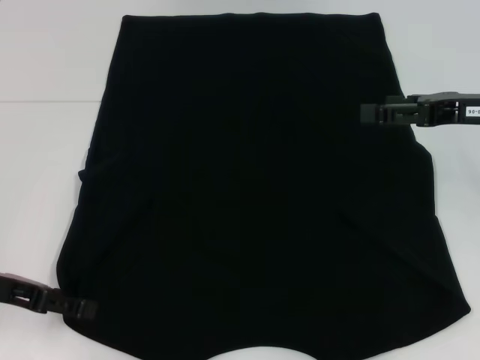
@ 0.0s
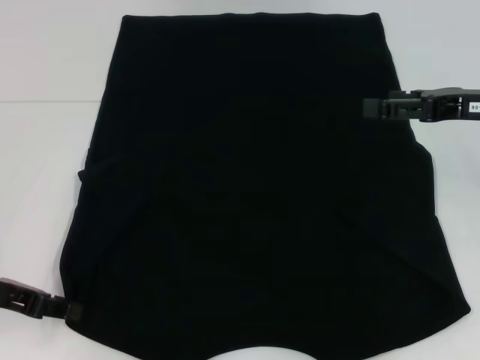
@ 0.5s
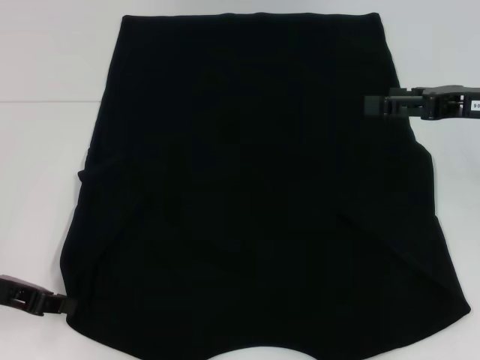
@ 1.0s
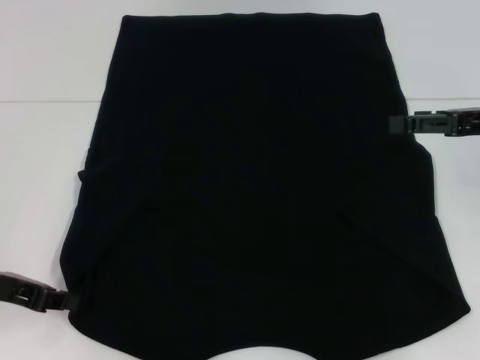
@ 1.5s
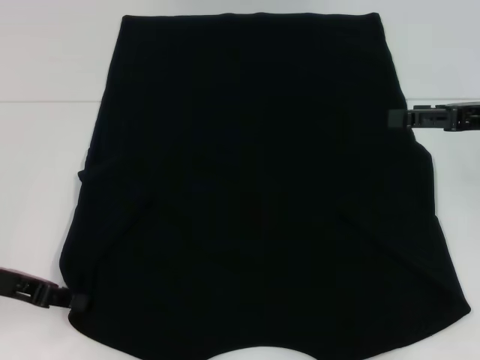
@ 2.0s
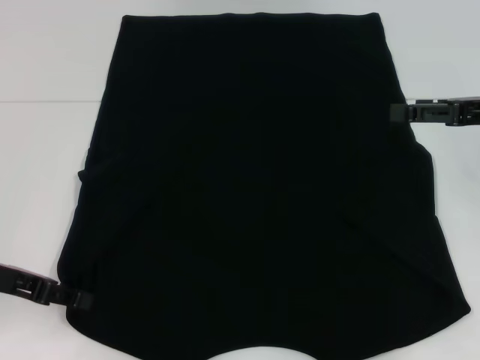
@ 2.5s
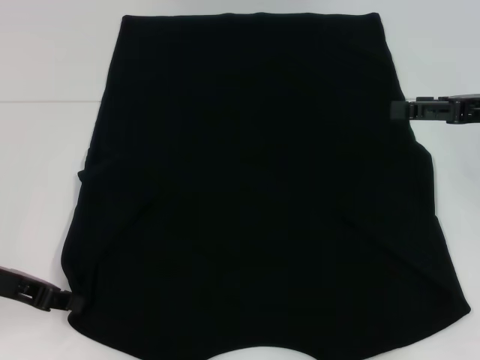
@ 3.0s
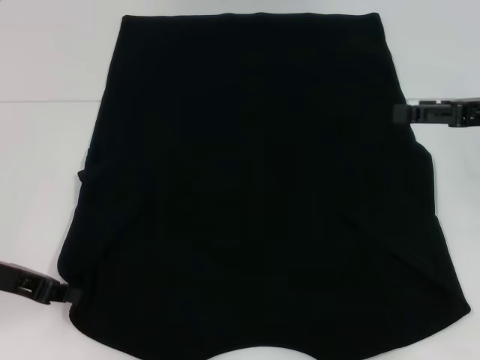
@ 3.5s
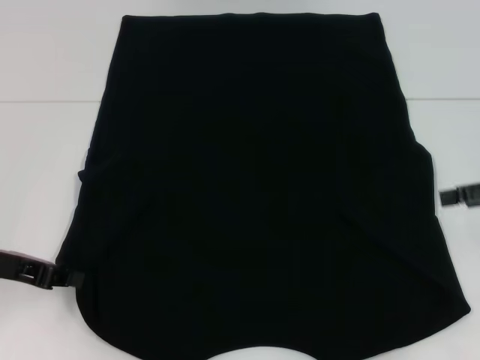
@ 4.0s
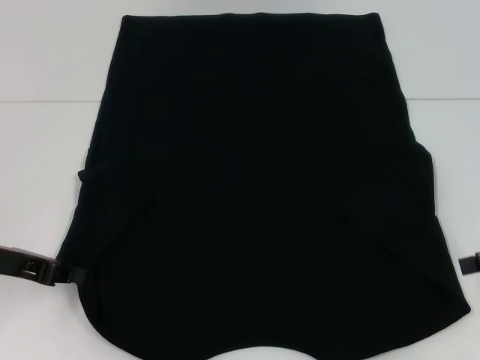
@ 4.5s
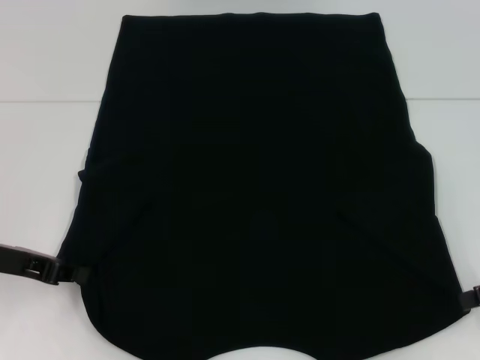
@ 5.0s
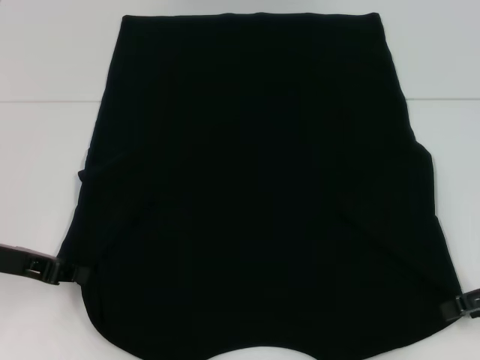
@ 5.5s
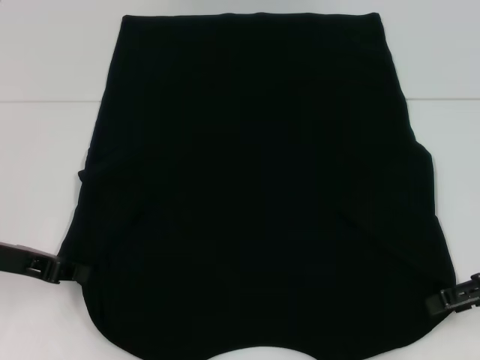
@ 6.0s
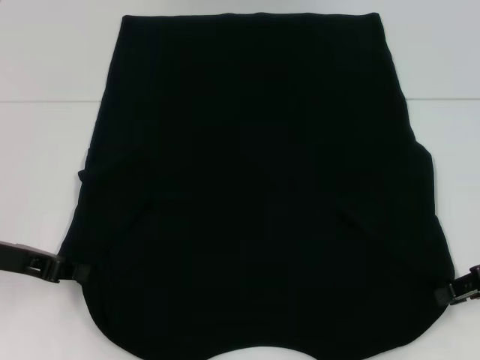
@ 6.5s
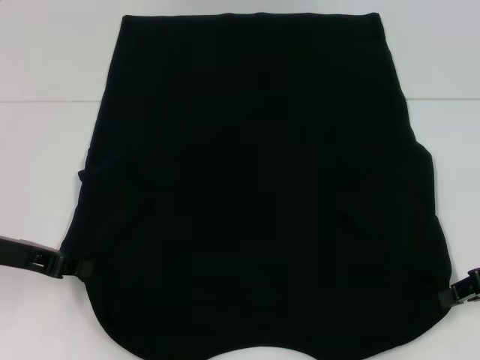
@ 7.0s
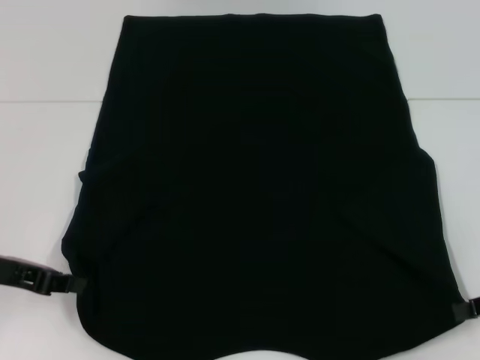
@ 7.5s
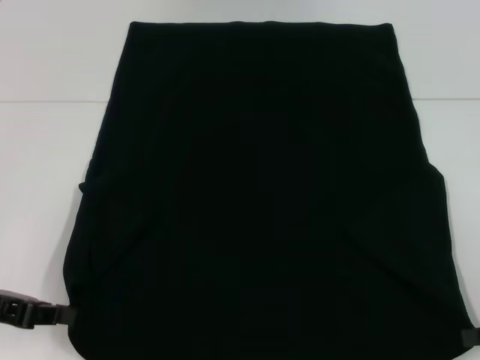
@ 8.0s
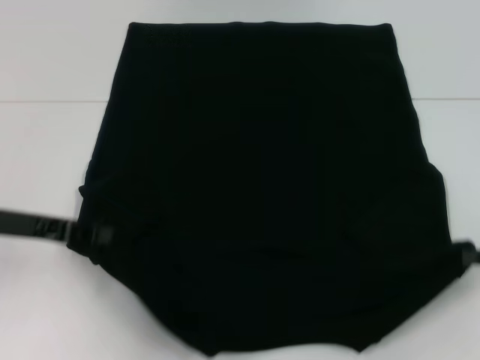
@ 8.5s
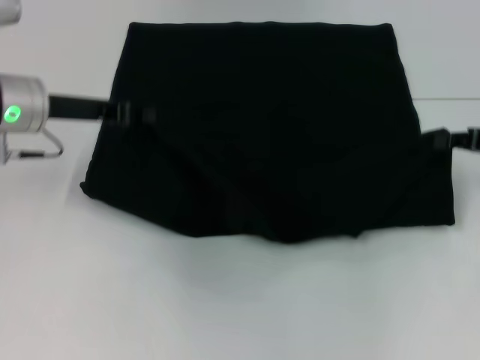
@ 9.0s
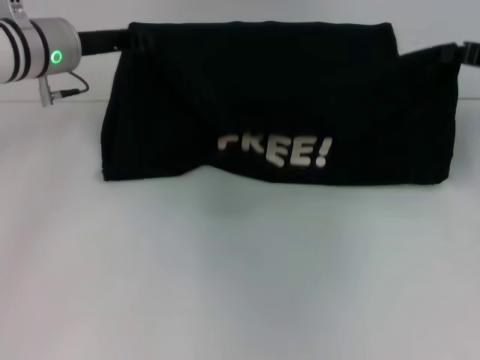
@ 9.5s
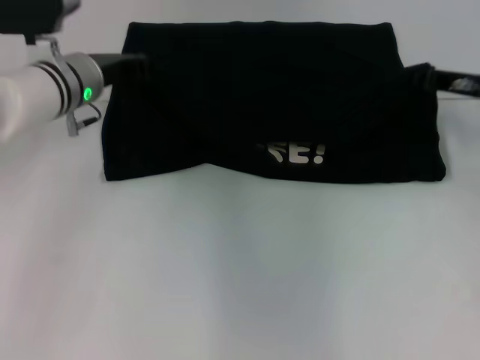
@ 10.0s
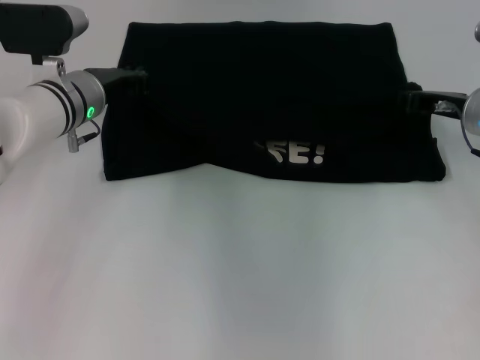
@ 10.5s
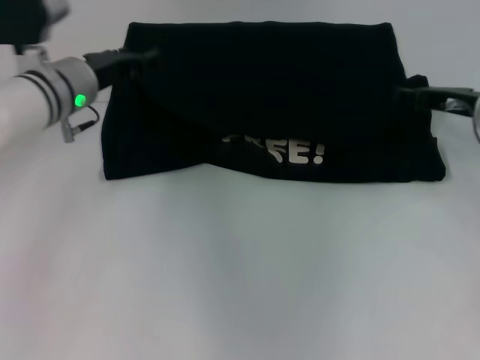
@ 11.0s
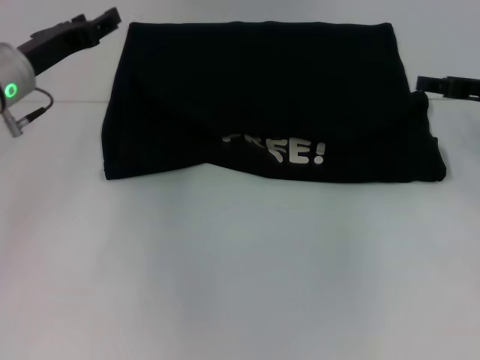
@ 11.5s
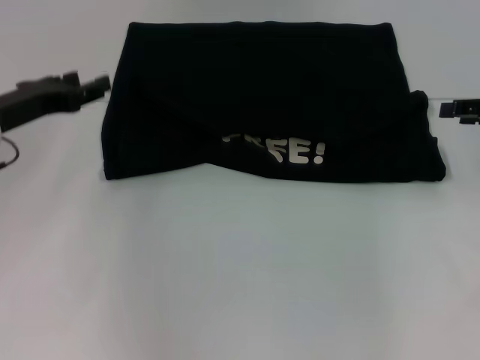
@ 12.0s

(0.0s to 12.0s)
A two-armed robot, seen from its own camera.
Step, 1.5s - 7.0s: Grab the bottom right corner with your right hand.
Step, 7.5s - 11.0s: Fold the clothes with your left hand.
Step, 7.5s - 11.0s: Fold the clothes with your right hand.
0.0s - 2.0s: The left gripper closes its fingers.
2.0s - 4.0s: The right gripper ends up roughly 5 cm from where it was.
4.0s - 6.0s: The right gripper travels downward by roughly 5 cm.
6.0s - 8.0s: Both grippers move backward, about 5 cm. The right gripper closes.
8.0s - 10.0s: The left gripper travels forward and to the right by roughly 25 cm. The right gripper heads forward and to the left, covering some 20 cm.
10.0s - 12.0s: The right gripper shifts some 10 cm to the right and backward, and opens its fingers. The left gripper moves to the left and backward, roughly 15 cm, and opens.

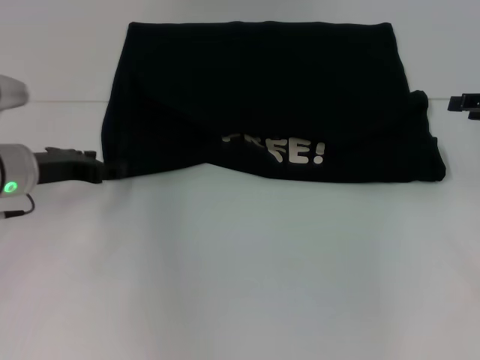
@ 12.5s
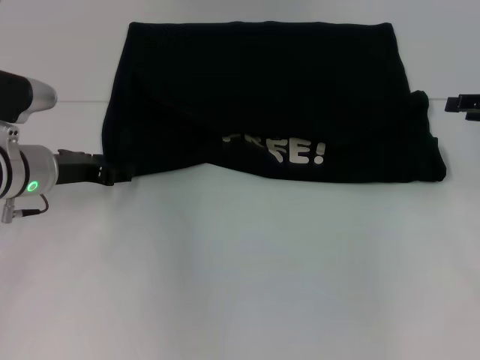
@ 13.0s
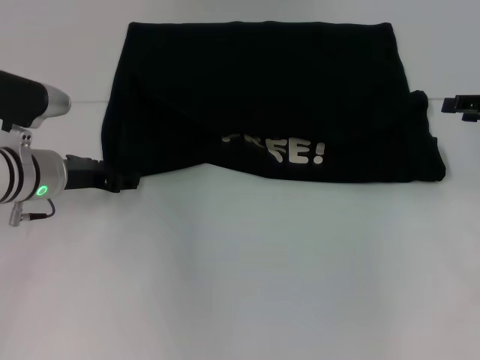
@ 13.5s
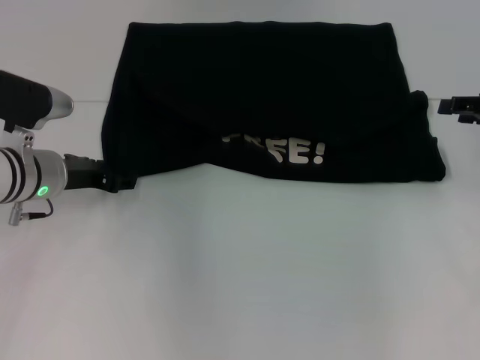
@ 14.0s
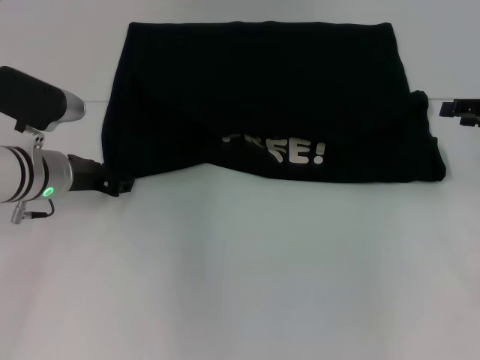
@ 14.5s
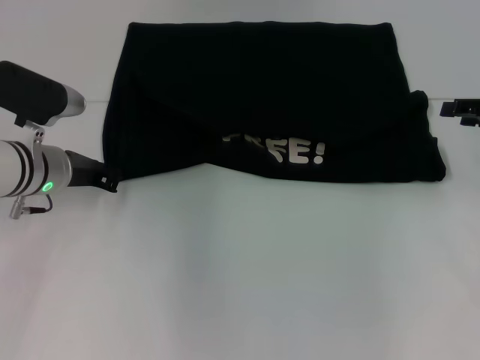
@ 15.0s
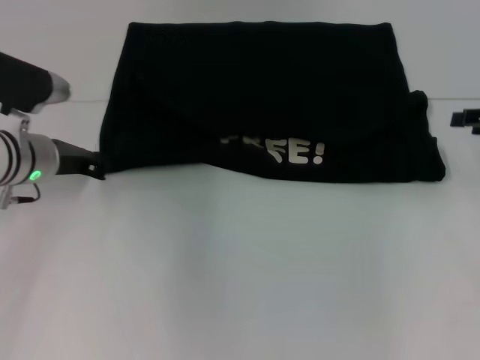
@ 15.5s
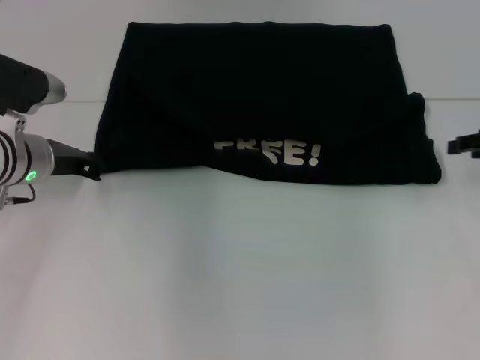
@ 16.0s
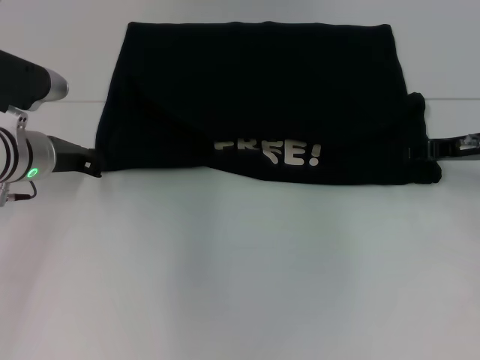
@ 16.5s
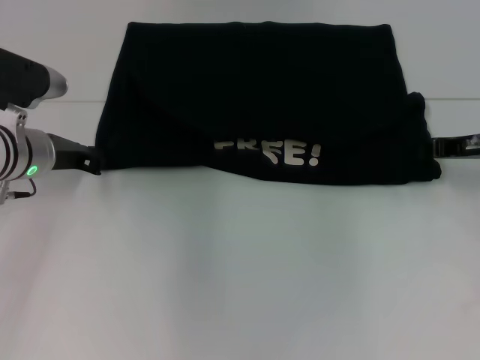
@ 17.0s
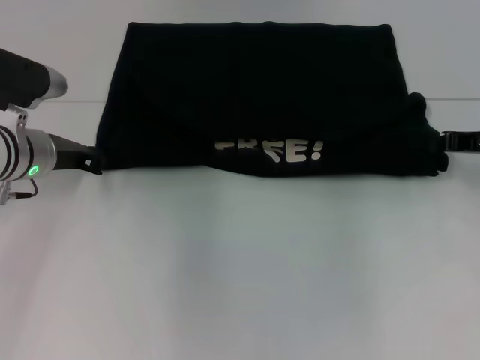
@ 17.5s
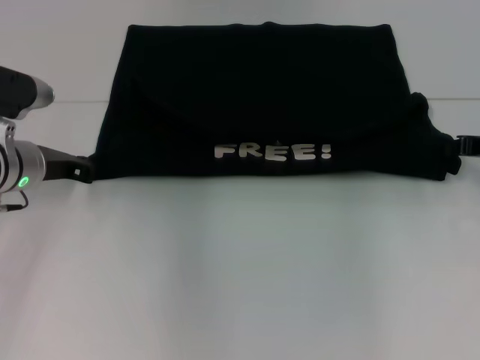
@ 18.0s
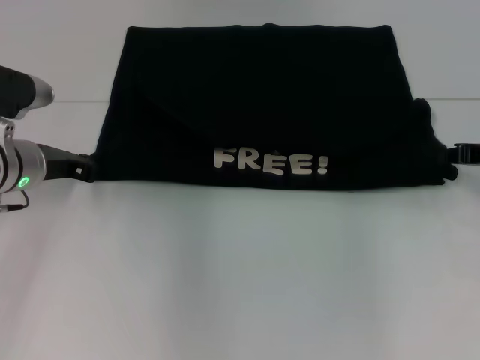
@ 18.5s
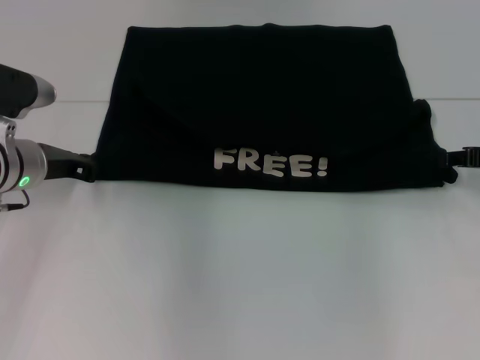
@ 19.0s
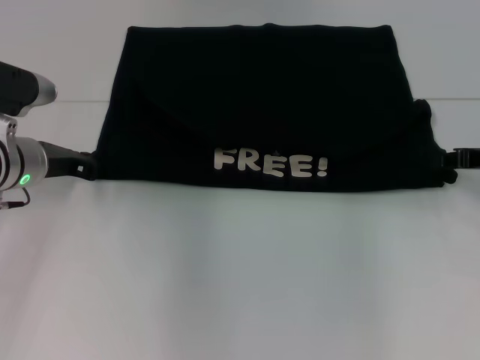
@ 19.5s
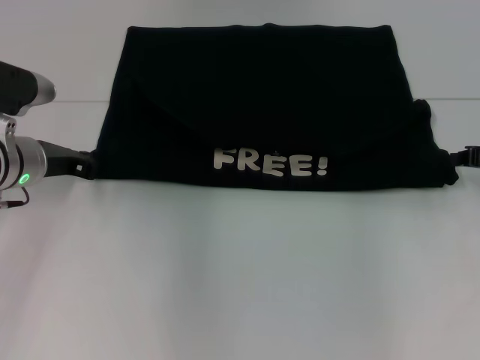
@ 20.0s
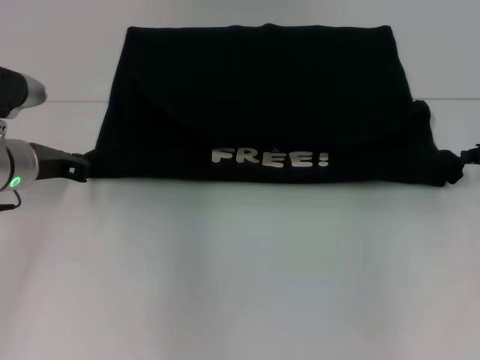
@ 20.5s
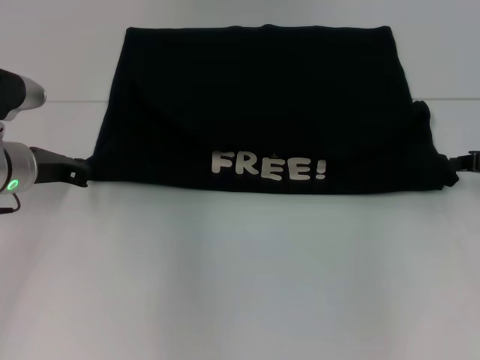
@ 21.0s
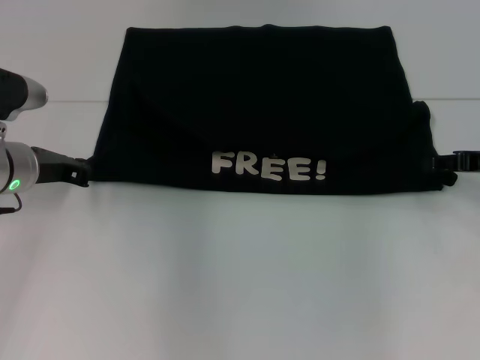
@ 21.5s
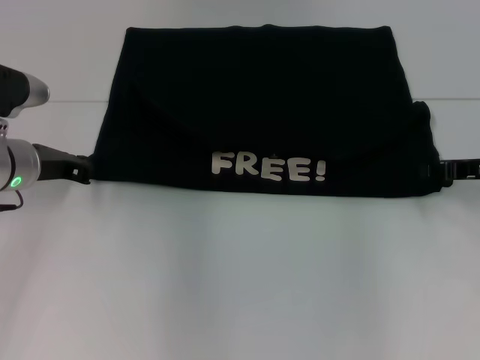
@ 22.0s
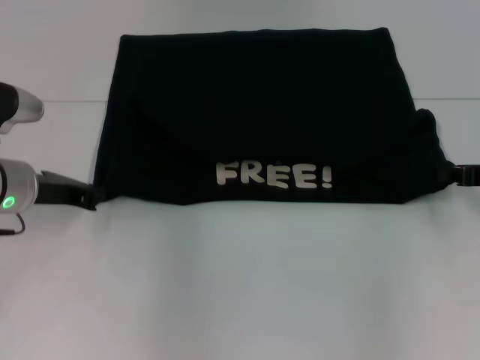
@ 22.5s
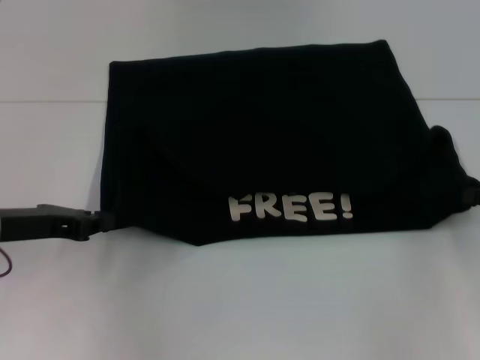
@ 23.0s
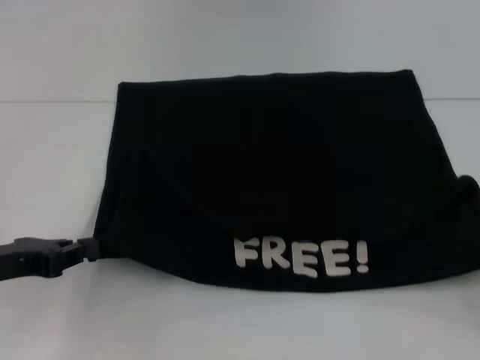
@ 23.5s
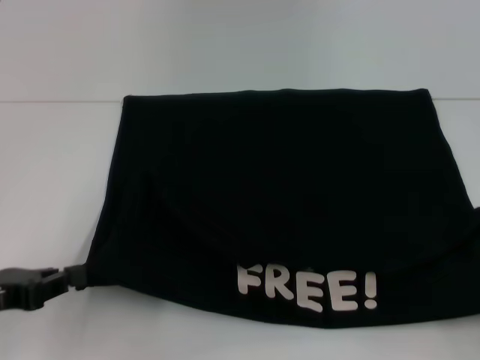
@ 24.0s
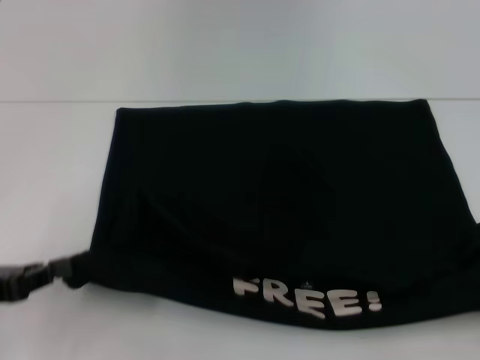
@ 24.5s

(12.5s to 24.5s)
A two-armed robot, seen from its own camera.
Step, 12.5s - 24.0s: Pull the clothes with your left hand.
Step, 12.5s - 24.0s: Pull the clothes with your right hand.
12.5s - 14.5s: There are only small adjustments of the grippers.
14.5s - 16.5s: The left gripper closes up. The right gripper heads to the left, covering roughly 5 cm.
16.5s - 18.5s: The right gripper closes.
18.5s - 20.5s: The right gripper opens, then closes once more.
20.5s - 22.5s: The right gripper opens and closes again.
22.5s - 24.5s: The right gripper heads backward and to the right, covering approximately 20 cm. Meanwhile the left gripper travels backward and to the left by approximately 15 cm.

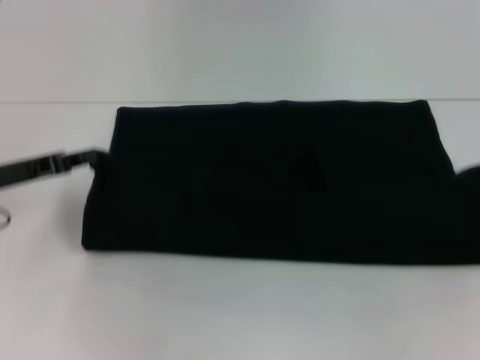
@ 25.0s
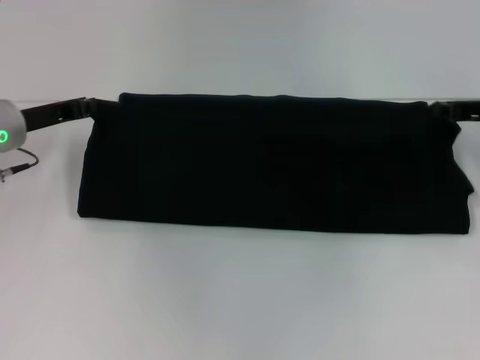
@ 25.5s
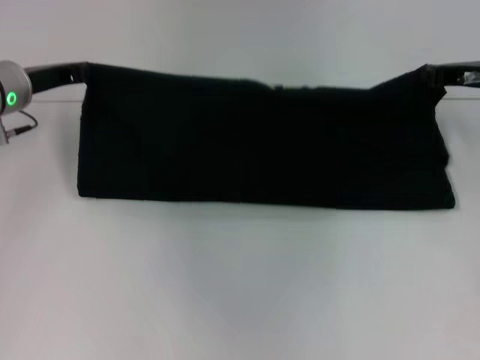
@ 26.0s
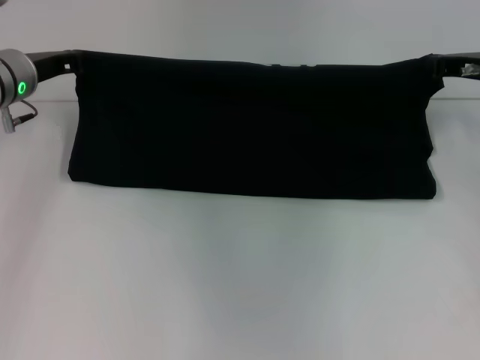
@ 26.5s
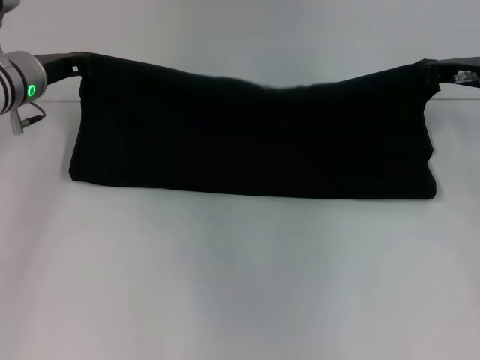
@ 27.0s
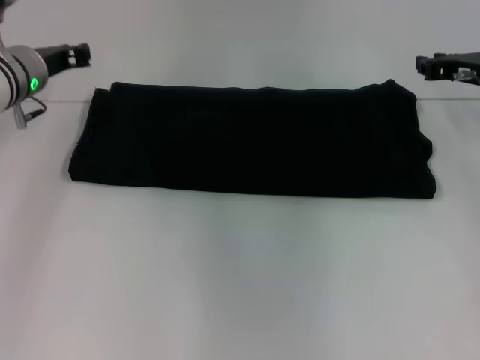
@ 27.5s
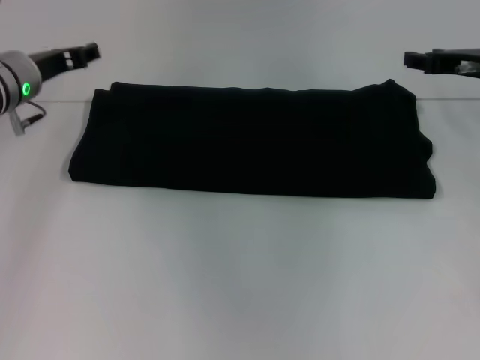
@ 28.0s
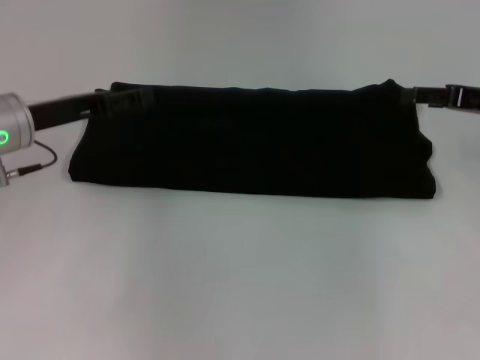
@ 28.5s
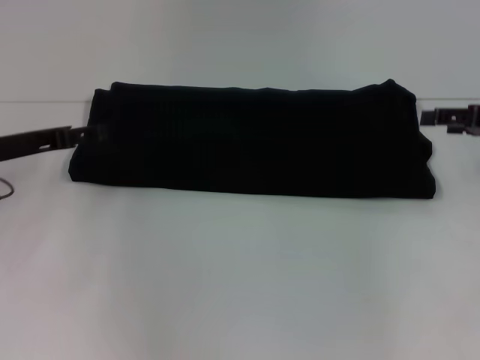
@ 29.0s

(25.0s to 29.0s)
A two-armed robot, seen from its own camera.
Step, 25.0s - 27.0s: Fold the clothes with your right hand.
25.0s - 27.0s: The left gripper goes roughly 15 cm forward and to the right. The right gripper shifts roughly 20 cm forward and to the left.
27.0s - 29.0s: The right gripper goes about 10 cm backward and to the right, and opens its fingers; the left gripper travels backward by about 10 cm, and opens.
